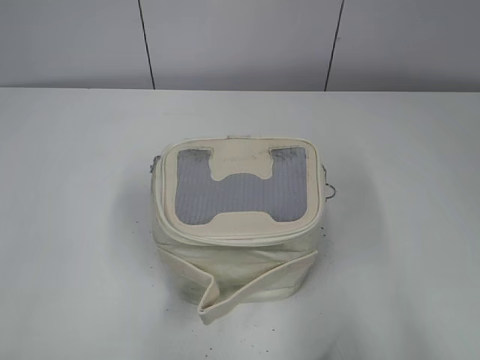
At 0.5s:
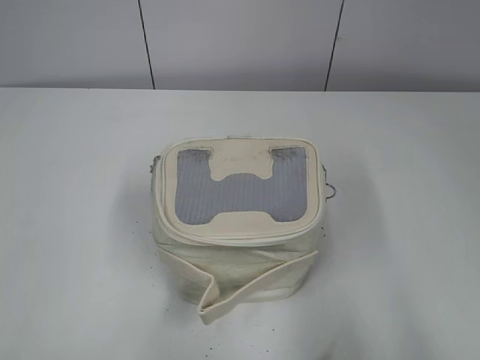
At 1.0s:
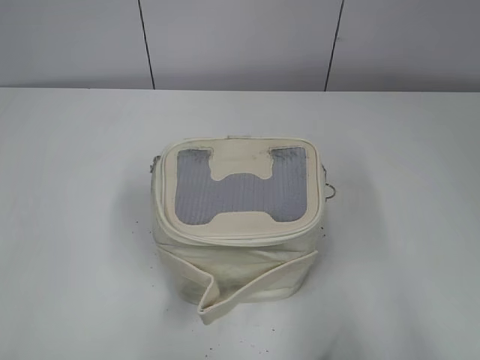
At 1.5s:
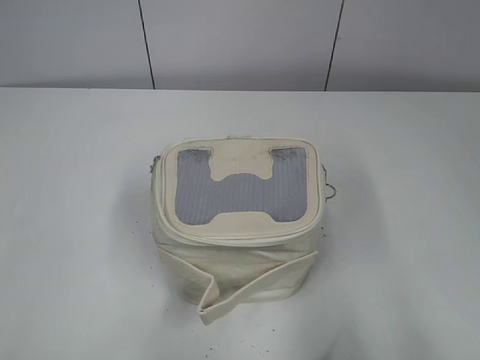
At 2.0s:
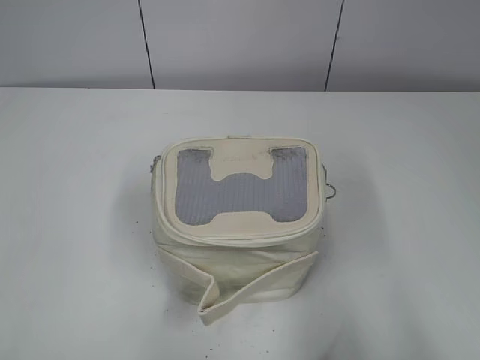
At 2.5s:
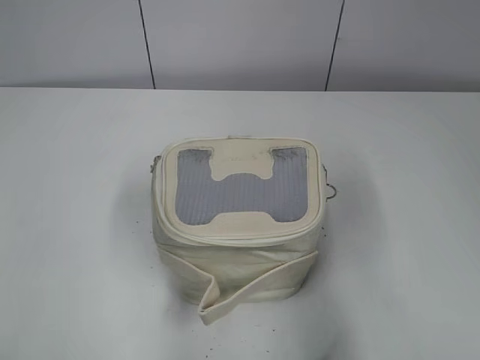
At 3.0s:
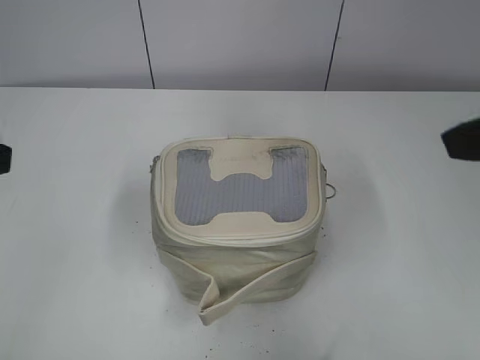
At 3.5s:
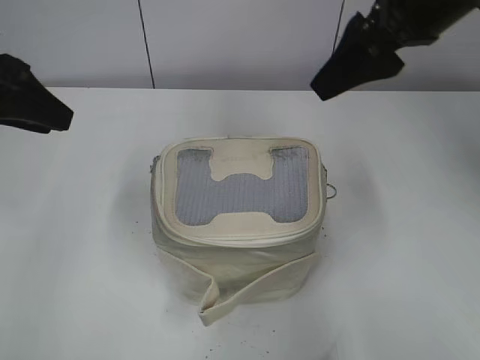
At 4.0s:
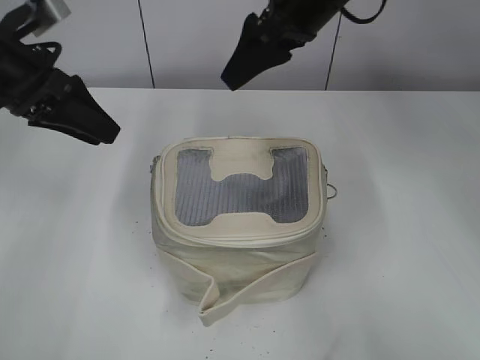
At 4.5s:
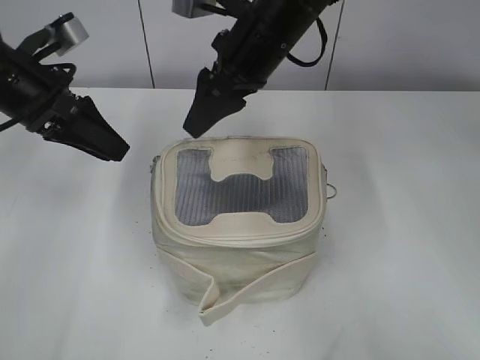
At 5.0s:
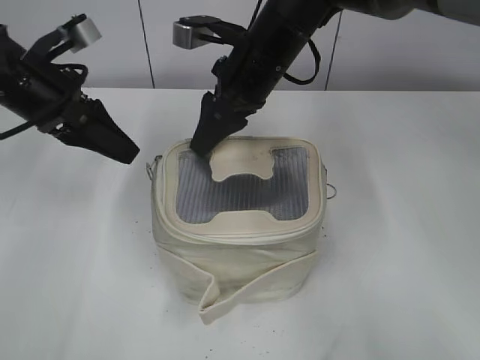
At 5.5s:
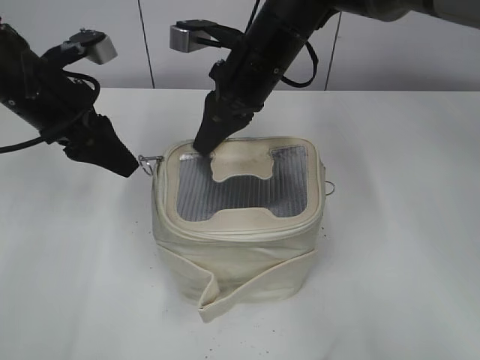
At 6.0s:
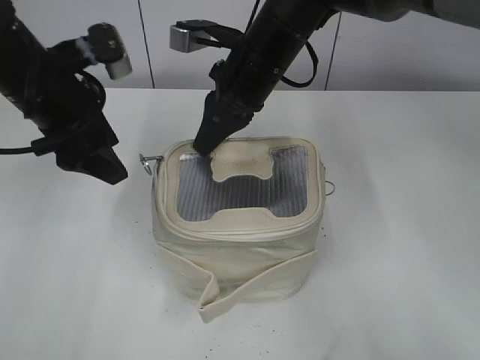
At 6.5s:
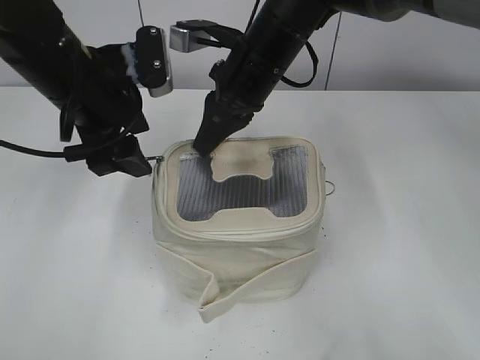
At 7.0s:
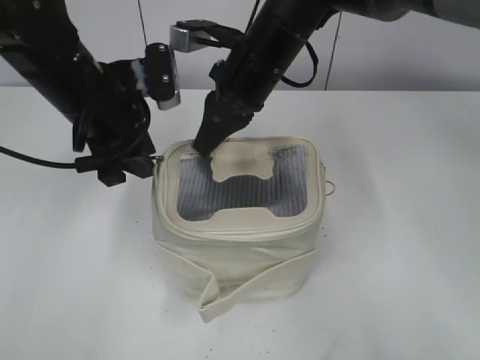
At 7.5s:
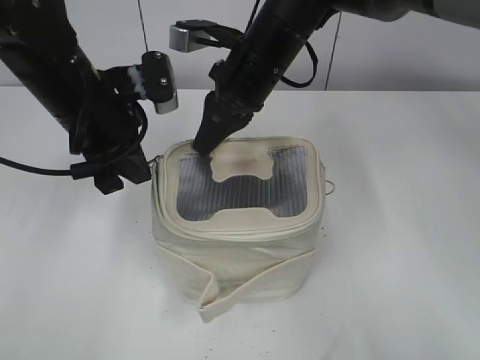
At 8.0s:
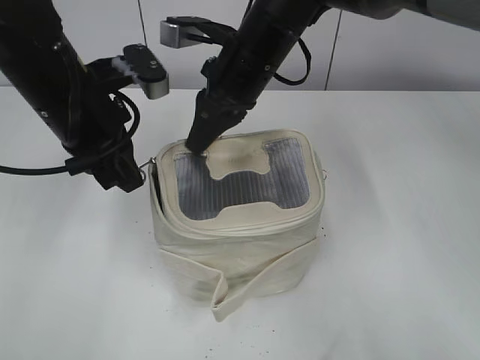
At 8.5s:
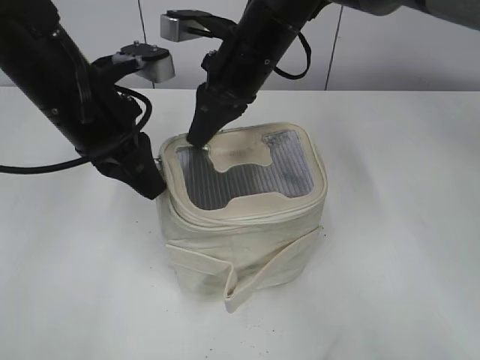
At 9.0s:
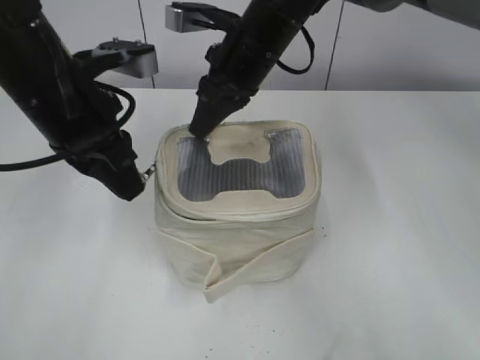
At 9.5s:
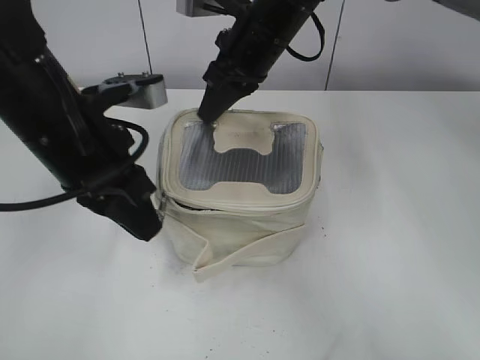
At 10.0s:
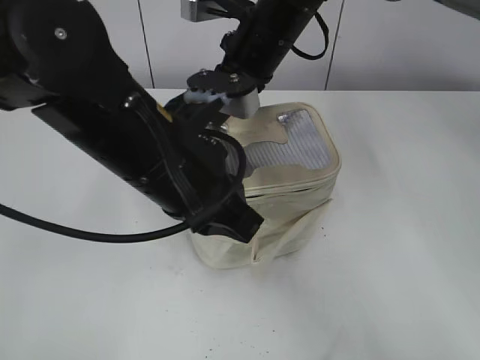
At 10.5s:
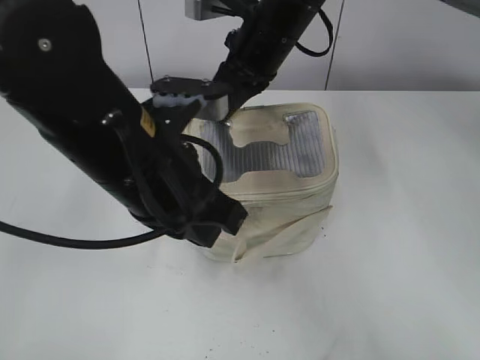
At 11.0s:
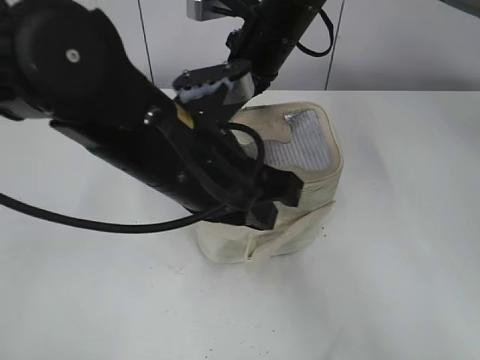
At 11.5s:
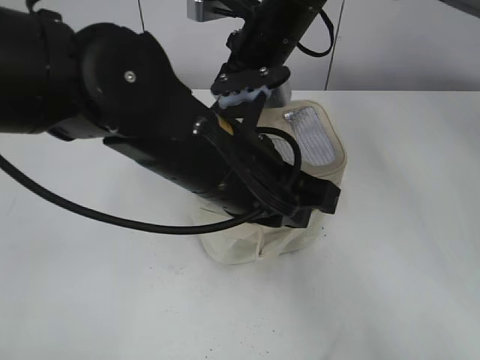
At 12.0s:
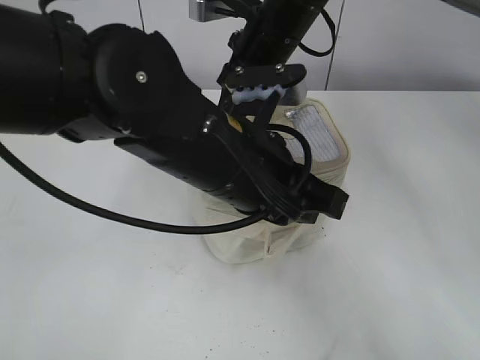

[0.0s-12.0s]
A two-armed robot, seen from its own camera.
2.0s to 4.0s: The right gripper goes approximately 50 cm forward and to the left; the left gripper moves forward, roughly 35 cm.
4.0s to 6.0s: The right gripper heads downward and to the left, covering some 10 cm, and closes up. Meanwhile the left gripper opens up.
6.0s to 8.0s: The left gripper moves roughly 5 cm, and closes its fingers.
8.0s to 10.0s: The left gripper shifts some 15 cm to the right and backward.
10.0s to 12.0s: The left gripper is displaced to the right by approximately 5 cm.

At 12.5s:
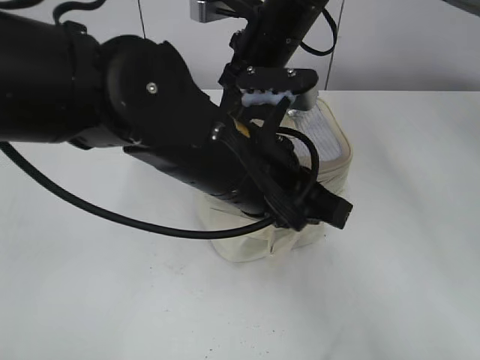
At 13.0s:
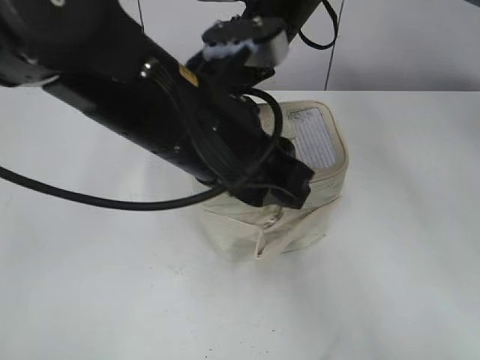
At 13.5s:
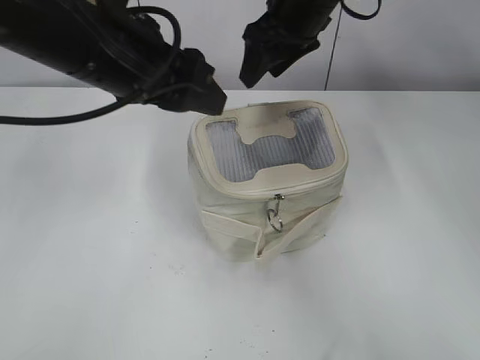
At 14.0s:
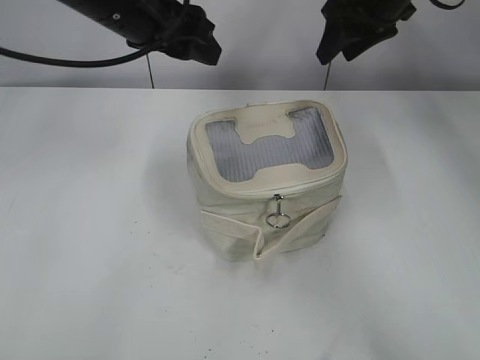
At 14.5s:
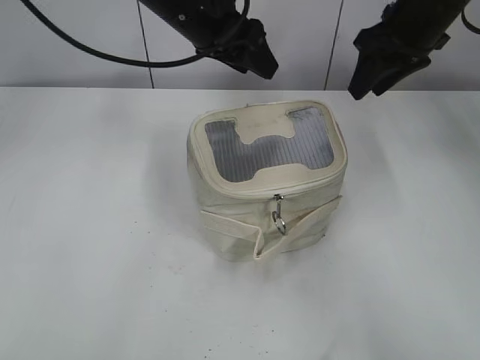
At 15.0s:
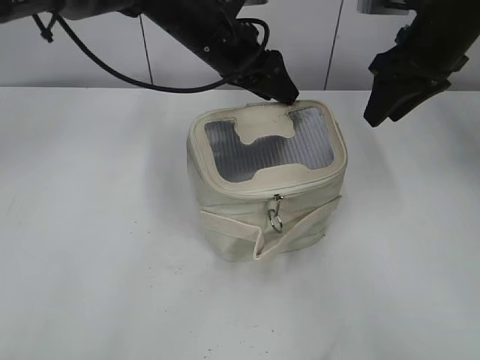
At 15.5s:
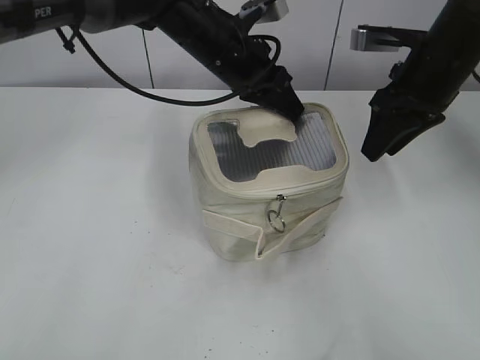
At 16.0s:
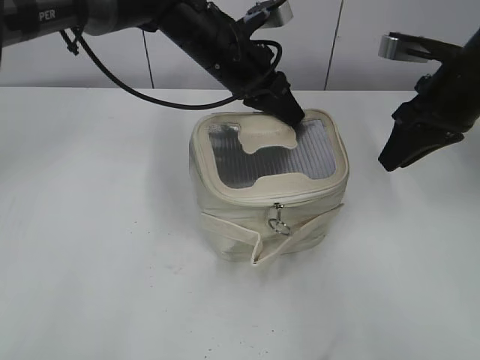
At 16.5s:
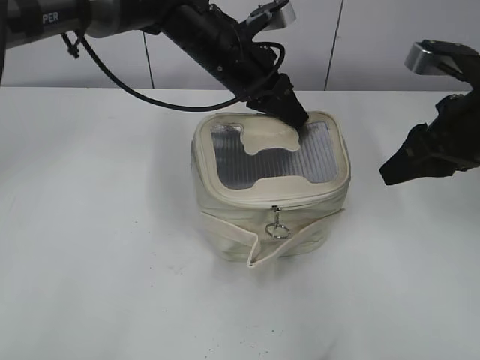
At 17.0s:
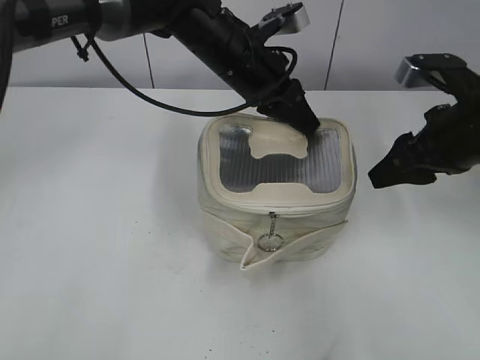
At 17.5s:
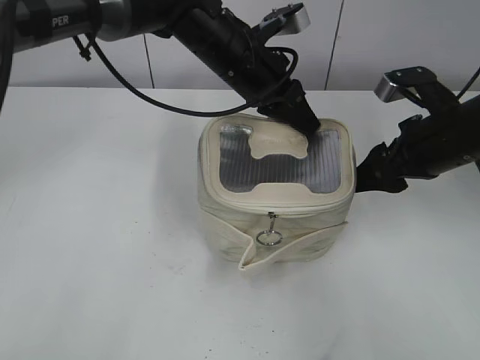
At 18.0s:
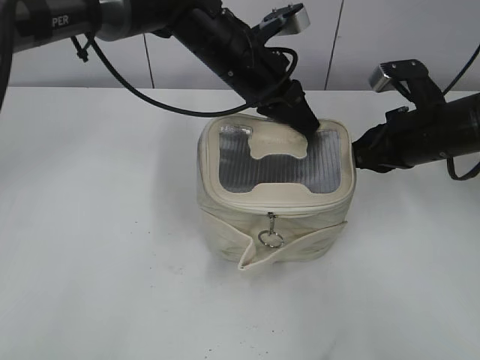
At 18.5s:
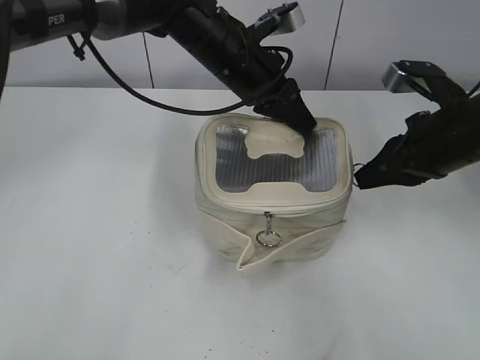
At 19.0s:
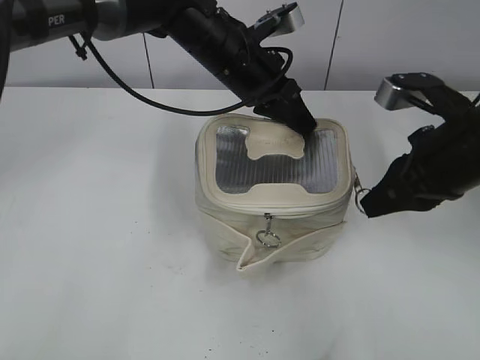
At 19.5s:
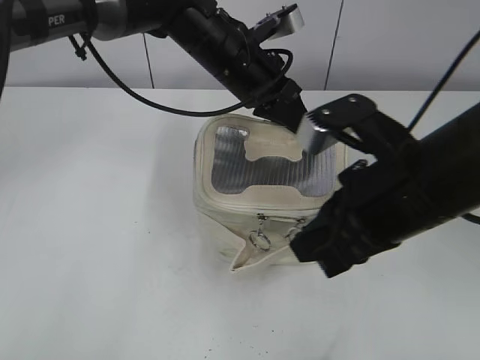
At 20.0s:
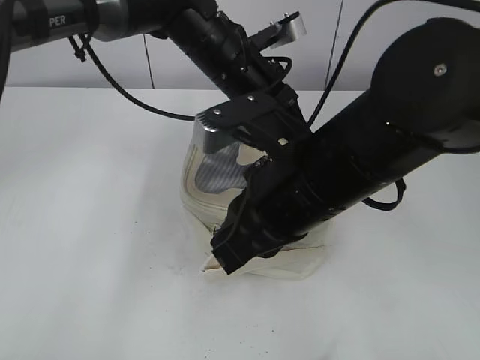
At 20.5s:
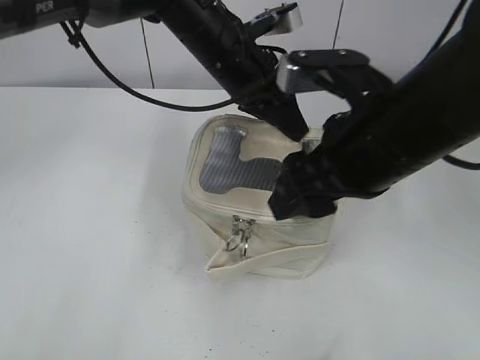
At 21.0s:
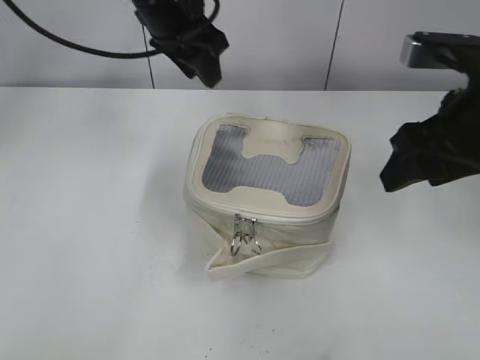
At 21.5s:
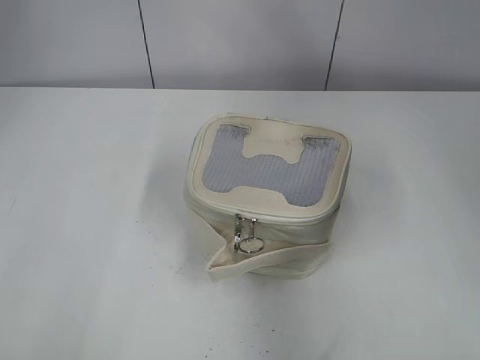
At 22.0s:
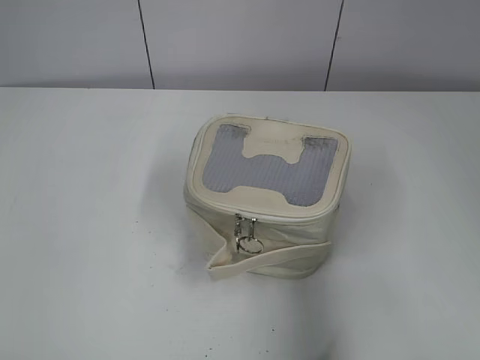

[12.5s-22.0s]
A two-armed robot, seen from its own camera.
Step, 13.5s to 20.0s: Zip up the bag with your right hand.
Step, 20.5s to 21.0s: Hold the bag with your left hand.
12.5s to 14.5s: The right gripper shifts roughly 15 cm to the right, and opens its fingers, while the left gripper heads forward, covering about 20 cm, and opens up.
14.5s to 16.5s: The right gripper is displaced backward by some 15 cm, while the left gripper goes about 5 cm downward, and closes.
16.5s to 18.0s: The right gripper is displaced downward by some 5 cm, and closes its fingers.
18.0s to 20.0s: The right gripper moves to the left and backward, roughly 20 cm.
20.0s to 22.0s: The left gripper moves to the left, backward and upward, some 40 cm, and opens up, while the right gripper goes some 25 cm to the right and backward, and opens its fingers.

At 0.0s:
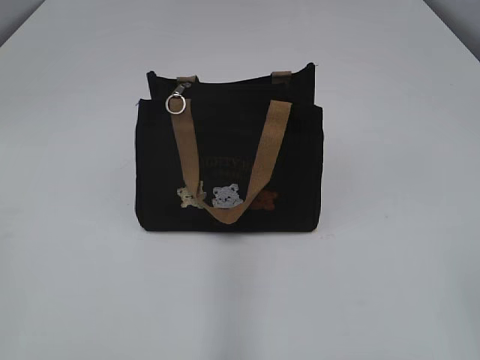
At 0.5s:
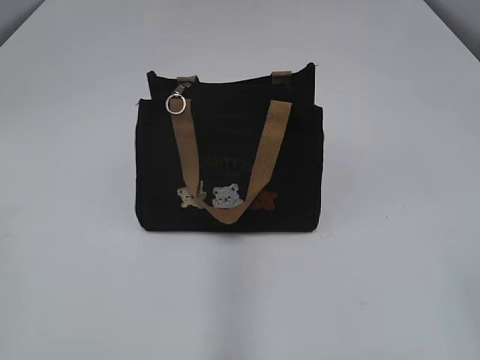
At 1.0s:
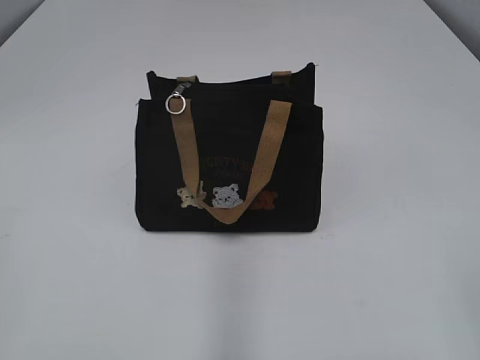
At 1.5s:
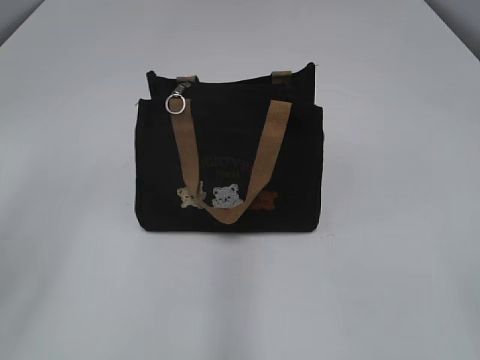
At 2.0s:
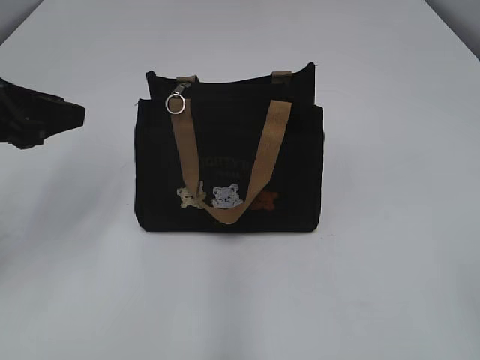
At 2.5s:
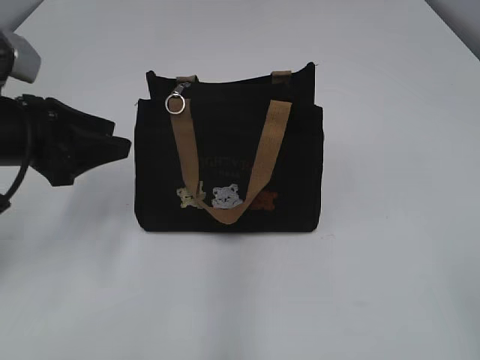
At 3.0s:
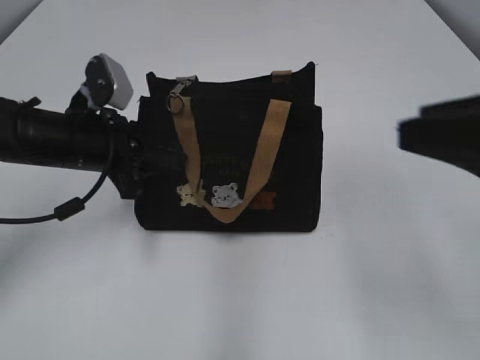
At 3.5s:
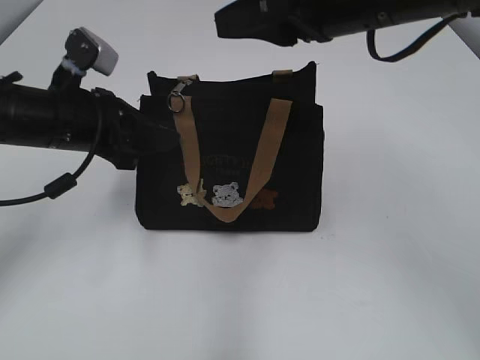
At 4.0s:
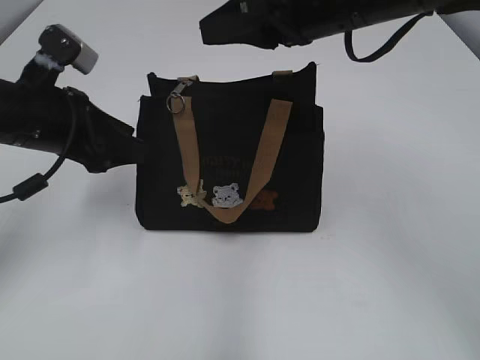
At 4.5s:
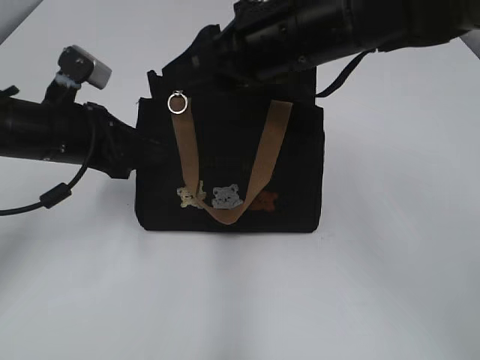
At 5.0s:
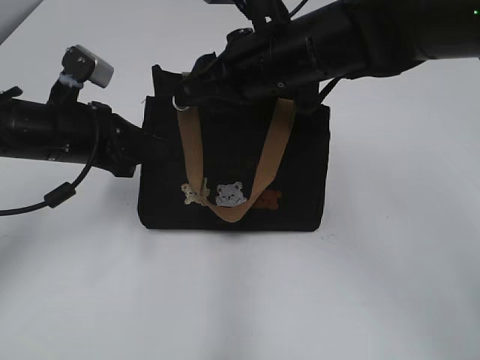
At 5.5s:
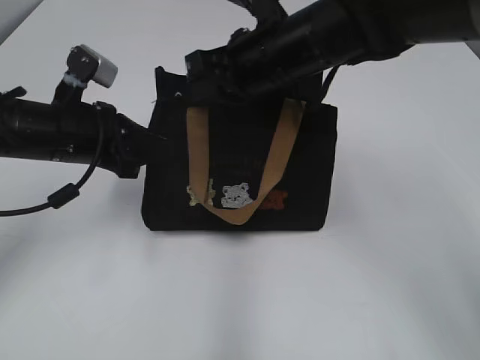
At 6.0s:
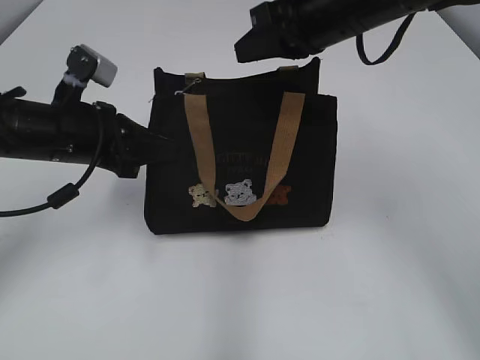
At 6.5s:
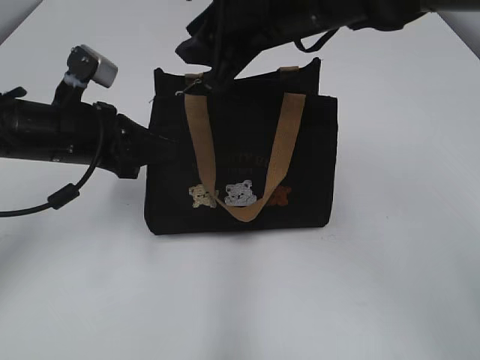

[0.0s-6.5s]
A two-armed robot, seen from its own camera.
2.0s to 4.5s: The left gripper goes some 10 cm downward, to the right and forward, and closes, then opens again; the right gripper shifts about 40 cm forward and to the left.
4.5s to 6.5s: The left gripper closes up. The right gripper closes and opens again.
